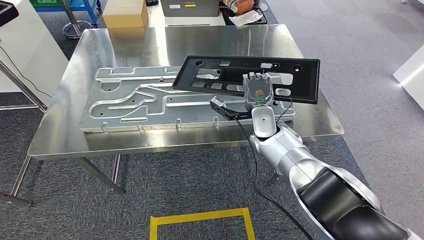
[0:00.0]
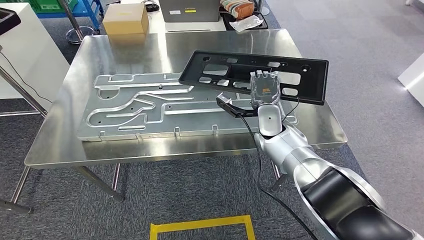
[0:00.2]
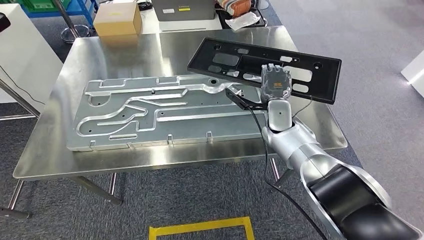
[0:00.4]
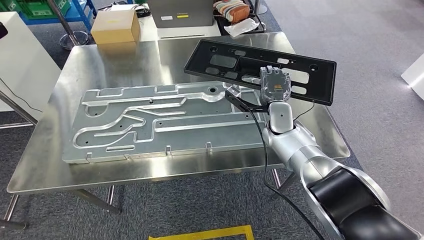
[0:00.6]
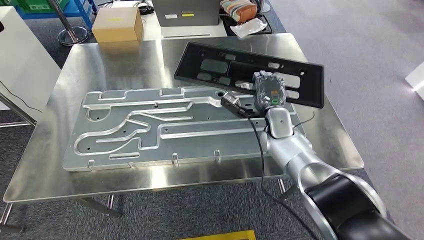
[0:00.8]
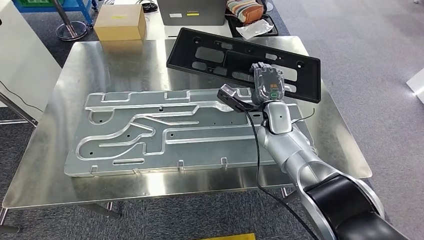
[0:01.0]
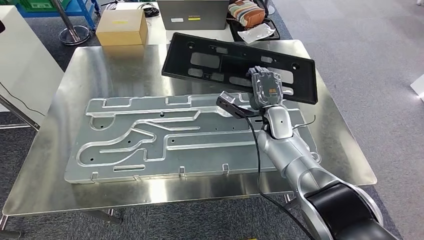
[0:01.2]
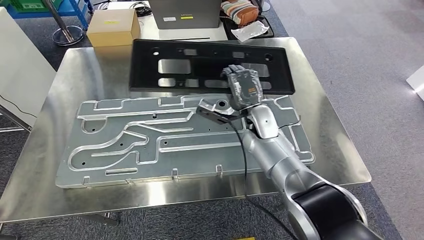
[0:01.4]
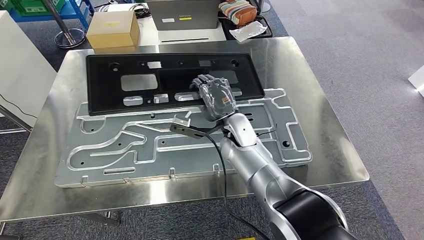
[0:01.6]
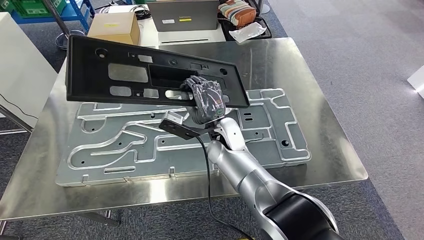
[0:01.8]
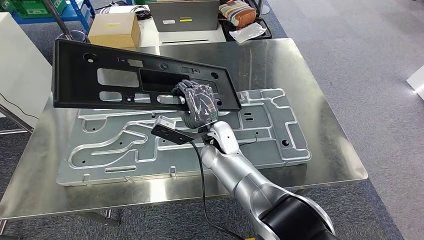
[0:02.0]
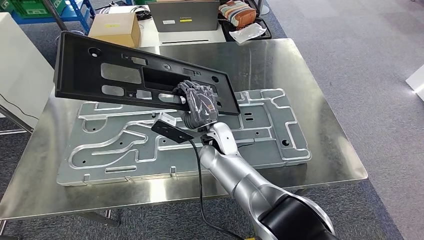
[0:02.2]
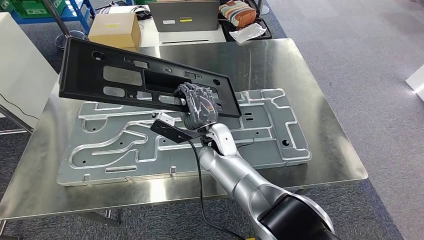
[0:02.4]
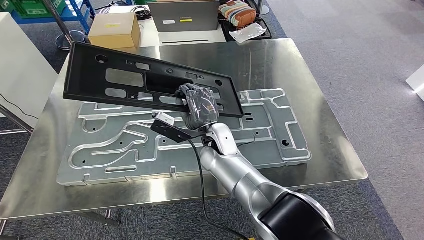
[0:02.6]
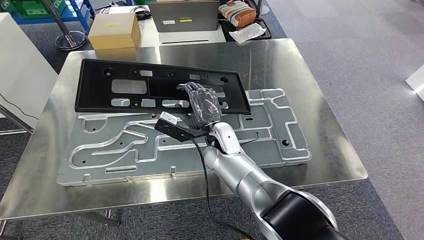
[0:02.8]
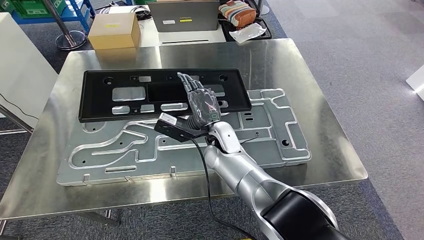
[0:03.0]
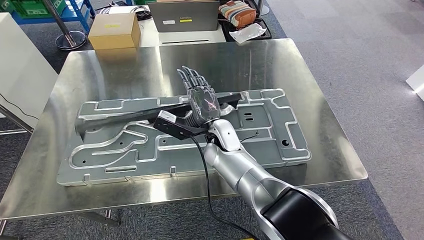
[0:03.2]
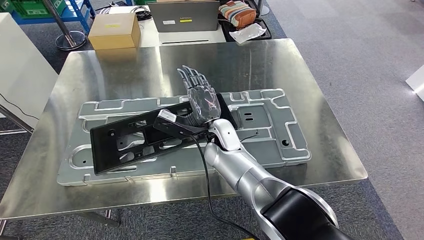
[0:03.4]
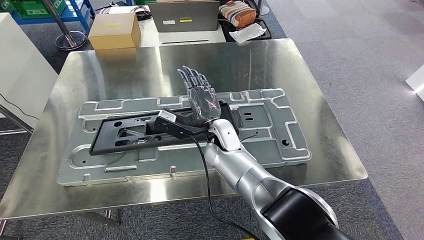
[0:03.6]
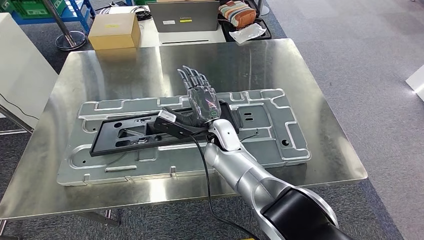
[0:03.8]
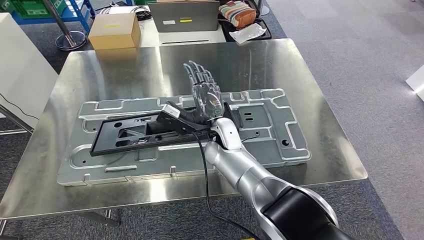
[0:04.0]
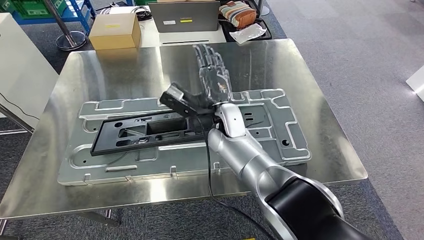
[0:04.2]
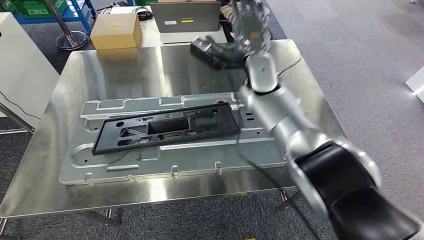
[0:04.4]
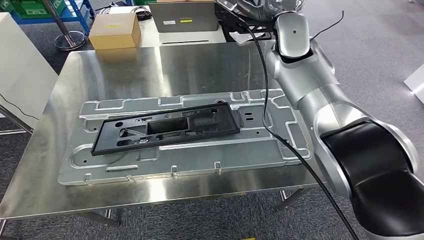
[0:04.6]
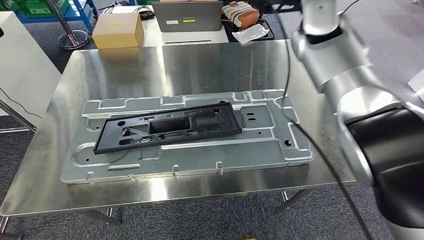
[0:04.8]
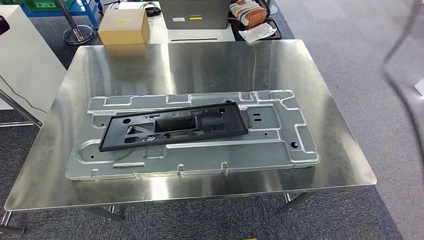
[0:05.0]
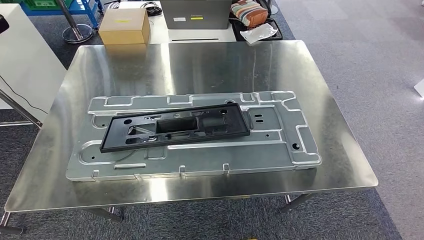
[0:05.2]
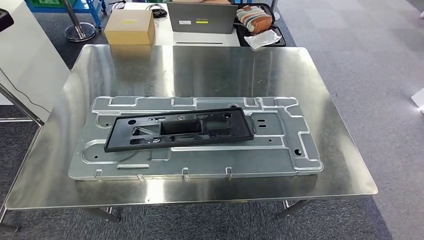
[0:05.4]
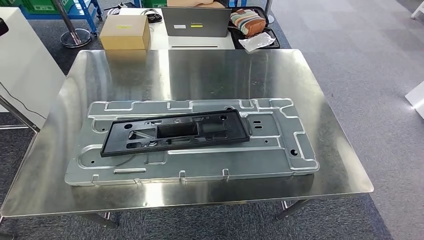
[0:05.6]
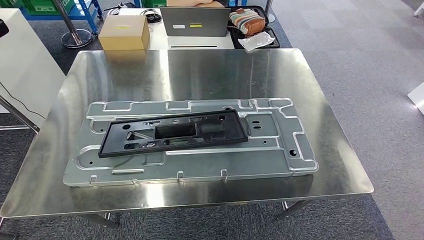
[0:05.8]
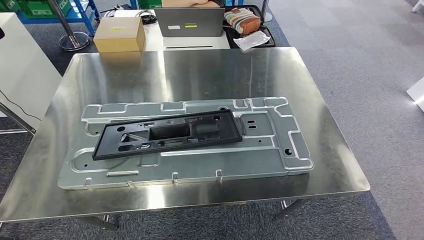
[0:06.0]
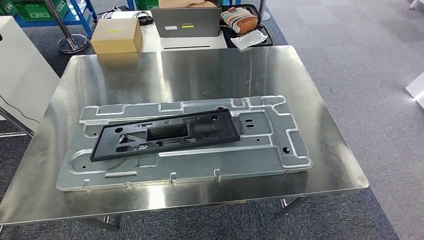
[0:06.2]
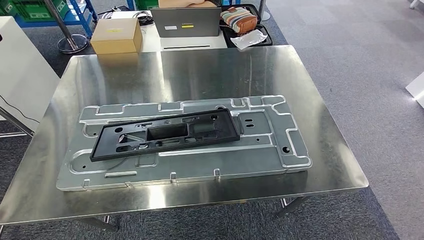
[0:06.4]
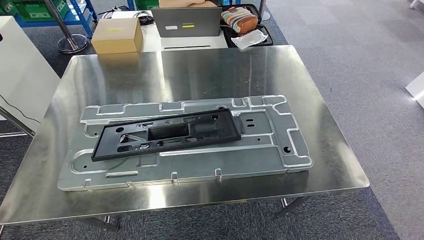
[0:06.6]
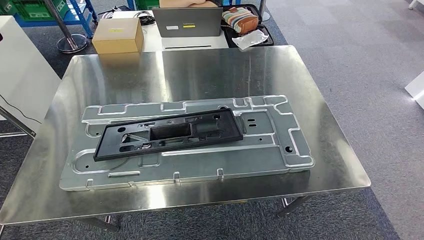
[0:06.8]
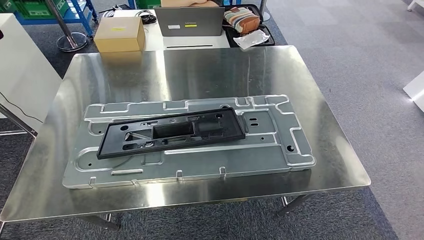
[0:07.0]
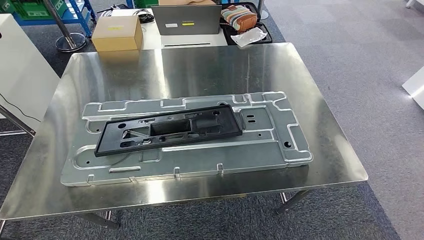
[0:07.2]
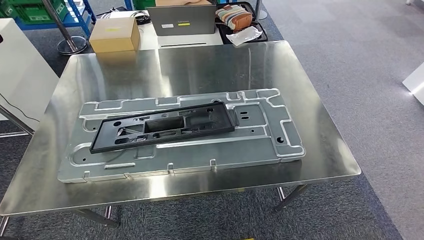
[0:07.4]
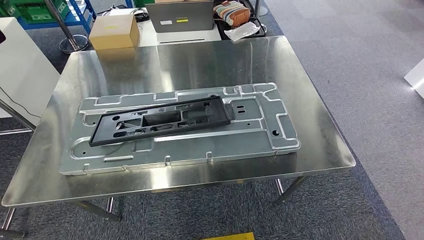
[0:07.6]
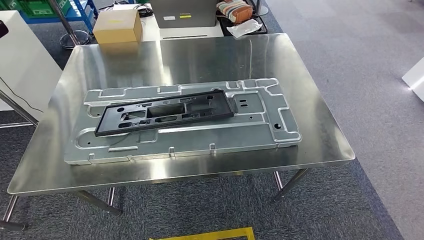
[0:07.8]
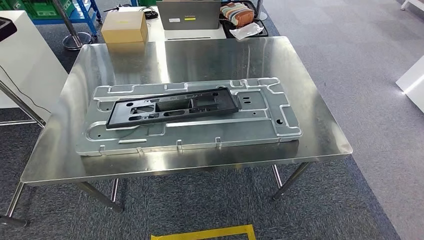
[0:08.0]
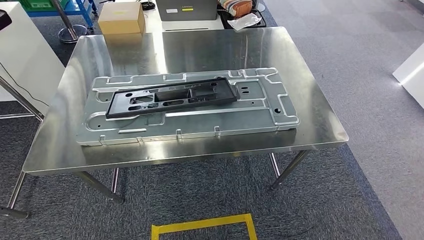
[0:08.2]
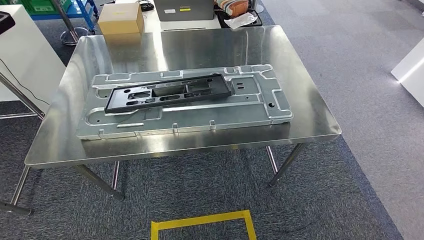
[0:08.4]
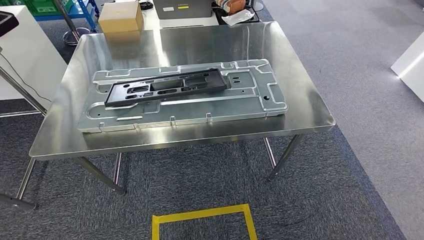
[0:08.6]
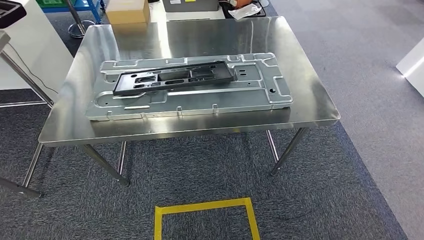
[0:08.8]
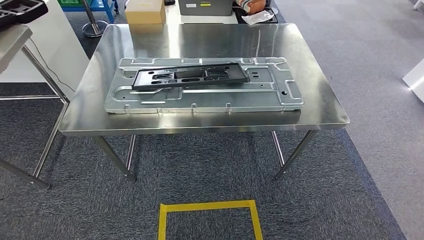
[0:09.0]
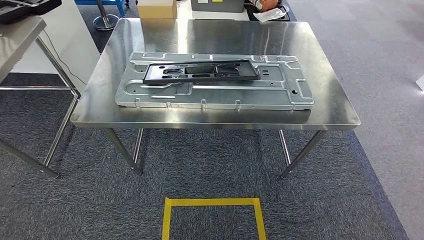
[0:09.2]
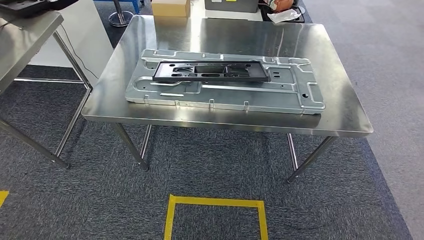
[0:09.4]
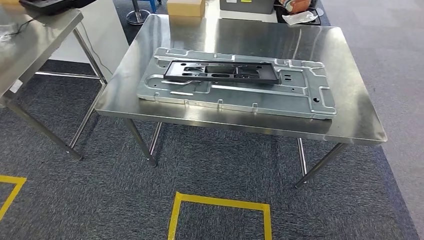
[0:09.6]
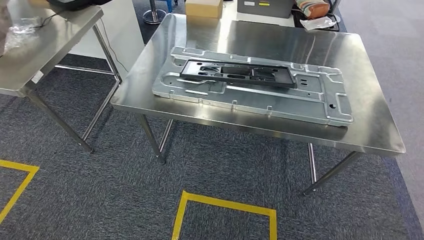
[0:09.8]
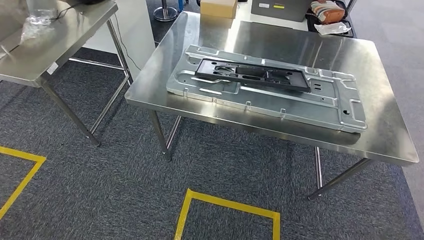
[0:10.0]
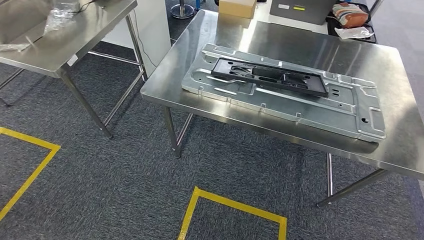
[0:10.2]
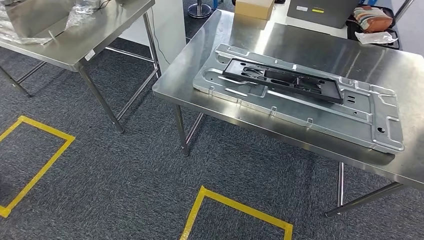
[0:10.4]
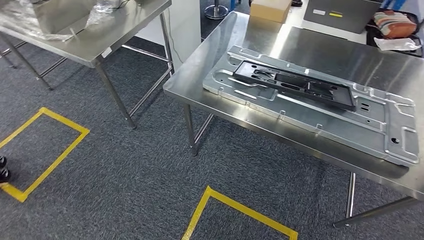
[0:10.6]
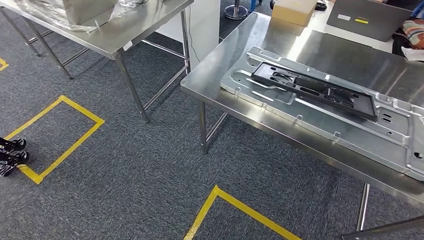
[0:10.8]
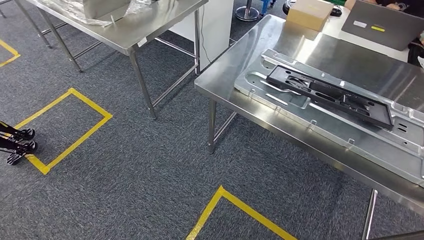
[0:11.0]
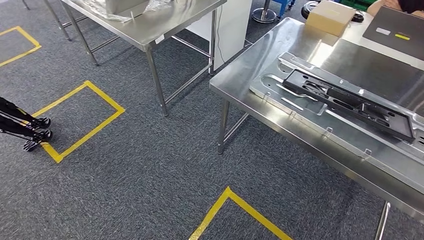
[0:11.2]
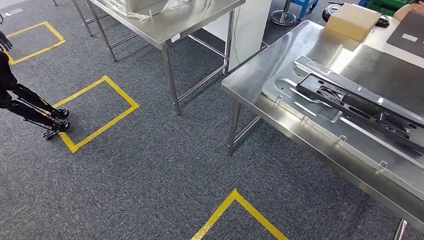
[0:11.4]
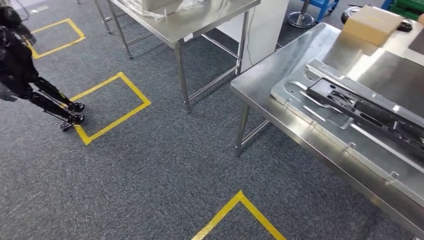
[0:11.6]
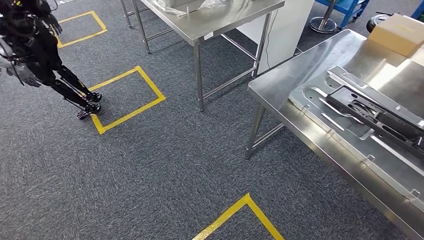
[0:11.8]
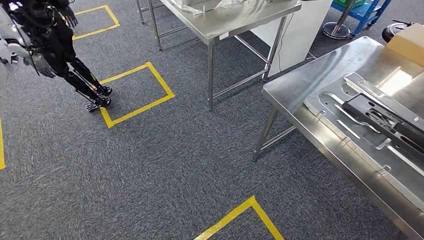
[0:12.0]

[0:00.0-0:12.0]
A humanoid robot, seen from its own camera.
Step, 0:00.2 to 0:03.8: Insert the large material into the corresponding hole on the workbench.

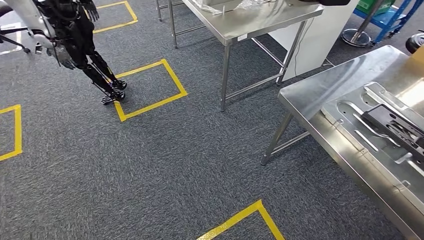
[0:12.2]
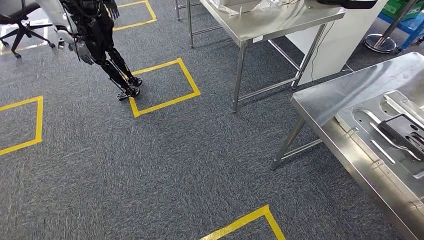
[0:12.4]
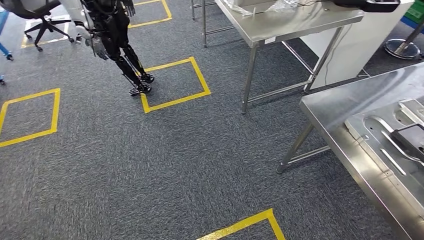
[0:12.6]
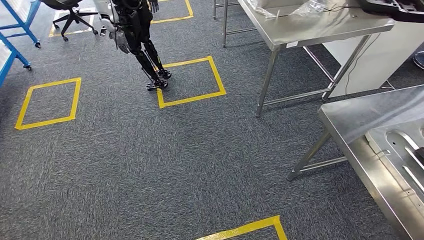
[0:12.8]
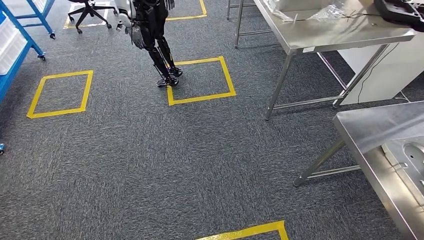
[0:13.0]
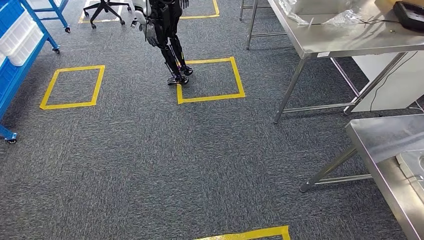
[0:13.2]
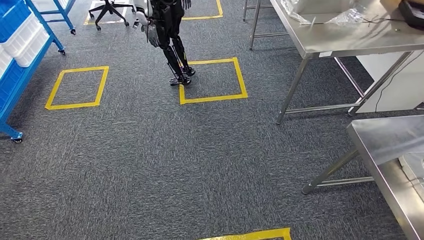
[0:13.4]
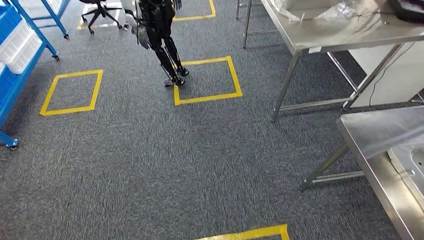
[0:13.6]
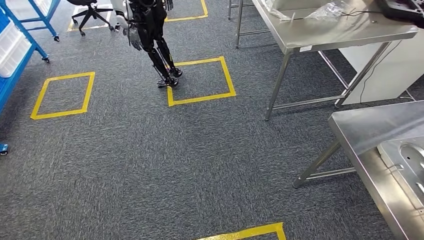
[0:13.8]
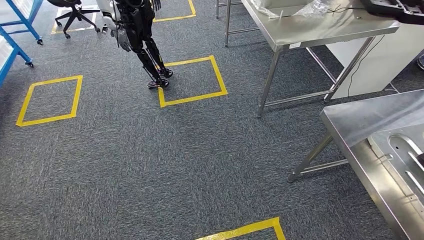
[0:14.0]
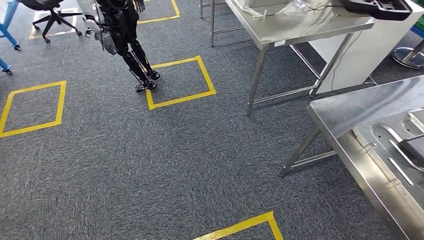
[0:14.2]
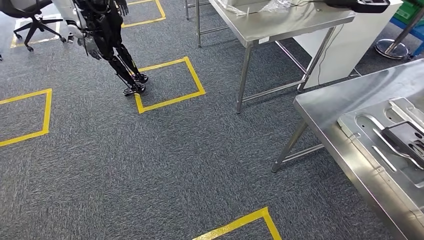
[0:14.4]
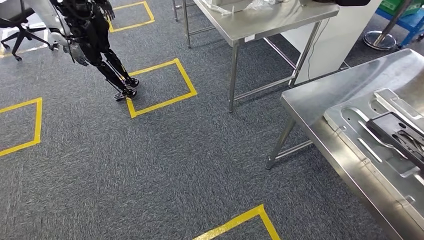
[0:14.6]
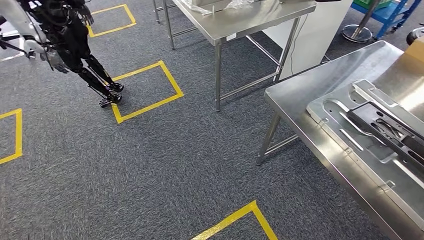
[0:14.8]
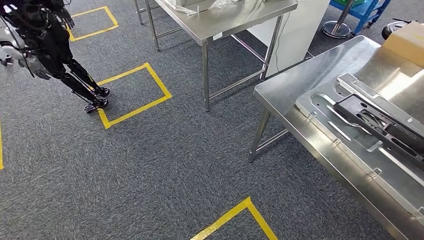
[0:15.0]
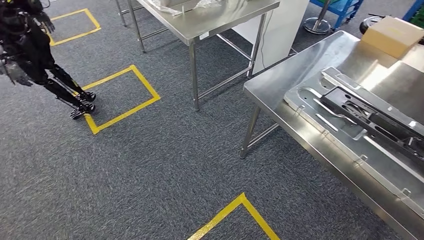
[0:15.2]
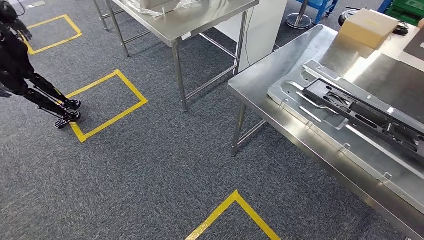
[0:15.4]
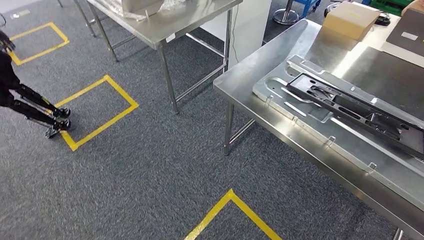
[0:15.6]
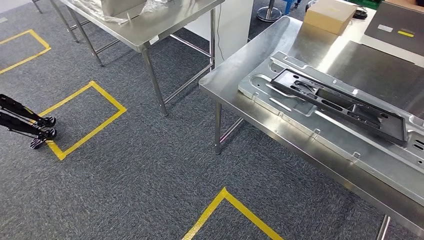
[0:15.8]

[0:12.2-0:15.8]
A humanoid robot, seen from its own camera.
Step, 0:12.2 to 0:15.8: Move to the initial position of the shelf.
